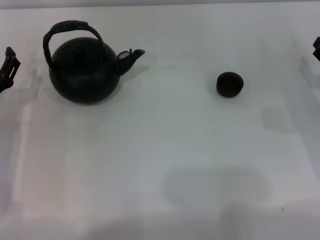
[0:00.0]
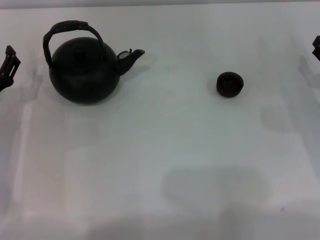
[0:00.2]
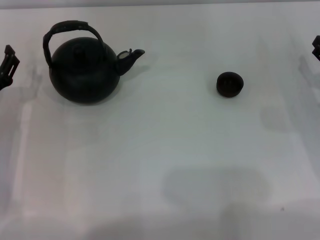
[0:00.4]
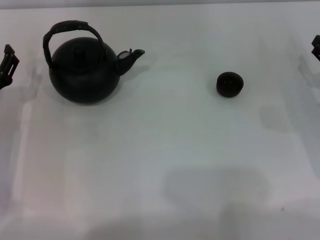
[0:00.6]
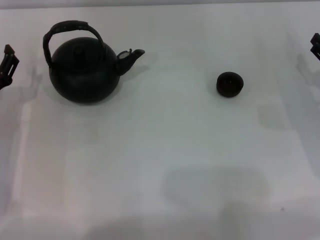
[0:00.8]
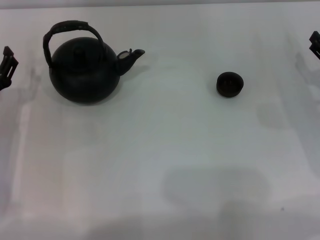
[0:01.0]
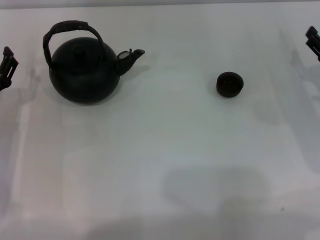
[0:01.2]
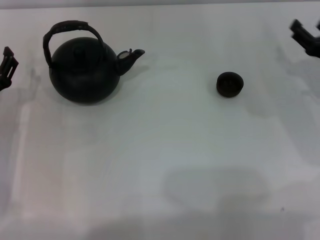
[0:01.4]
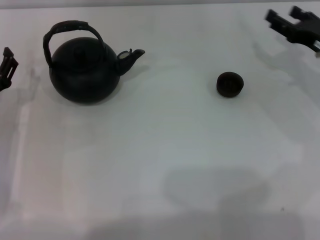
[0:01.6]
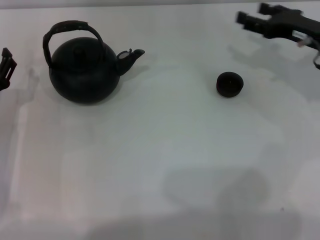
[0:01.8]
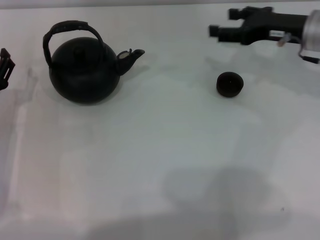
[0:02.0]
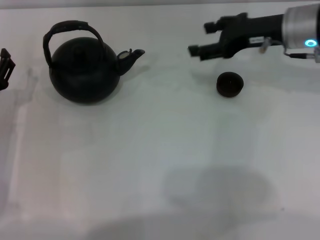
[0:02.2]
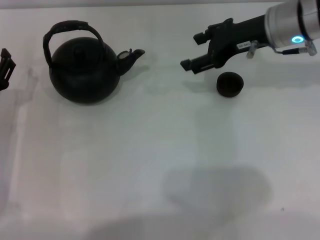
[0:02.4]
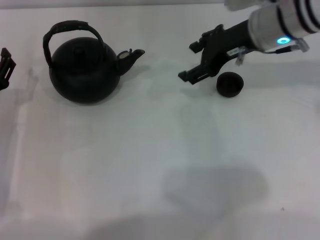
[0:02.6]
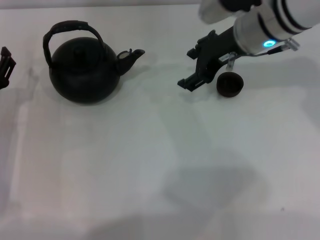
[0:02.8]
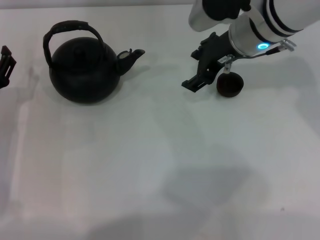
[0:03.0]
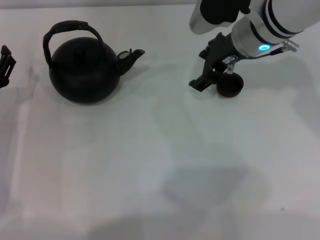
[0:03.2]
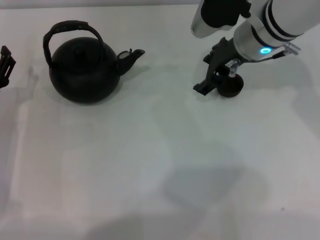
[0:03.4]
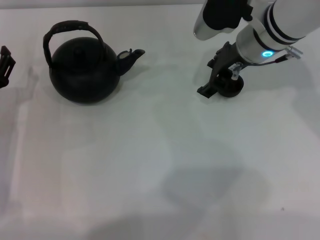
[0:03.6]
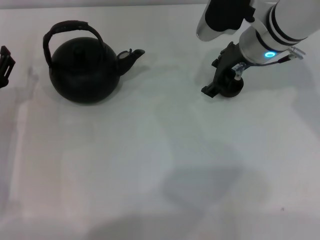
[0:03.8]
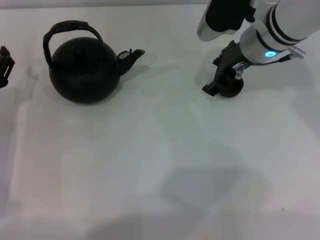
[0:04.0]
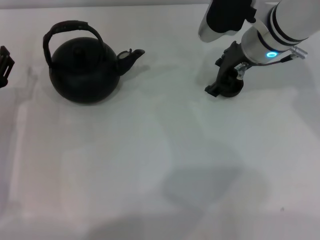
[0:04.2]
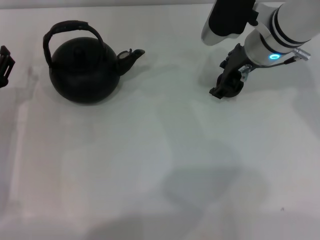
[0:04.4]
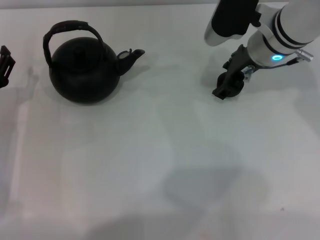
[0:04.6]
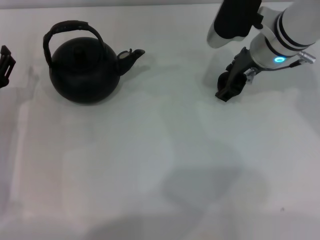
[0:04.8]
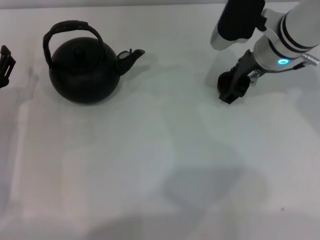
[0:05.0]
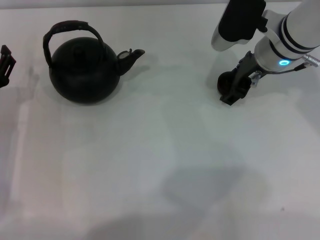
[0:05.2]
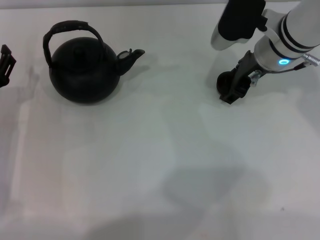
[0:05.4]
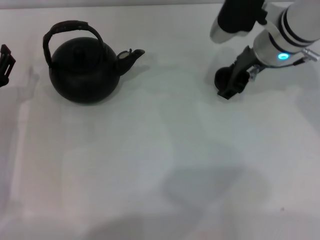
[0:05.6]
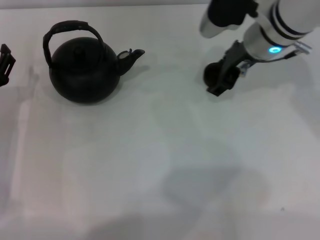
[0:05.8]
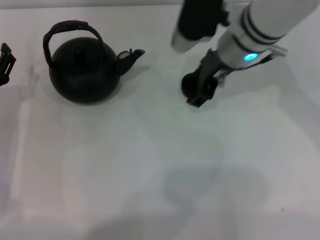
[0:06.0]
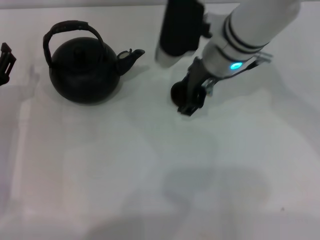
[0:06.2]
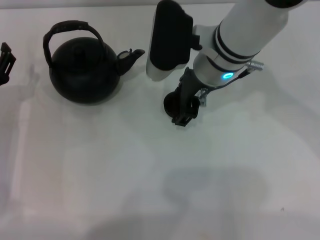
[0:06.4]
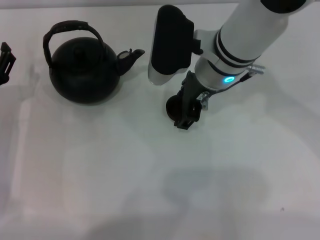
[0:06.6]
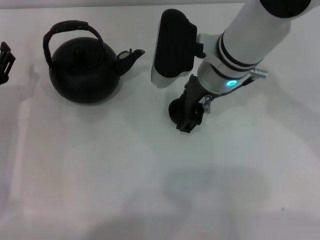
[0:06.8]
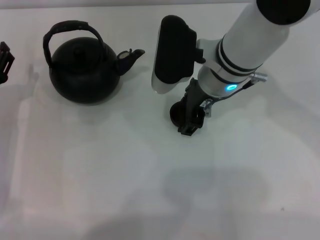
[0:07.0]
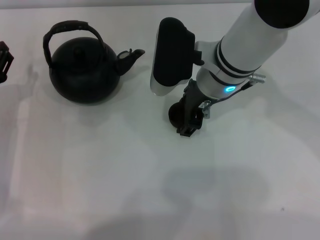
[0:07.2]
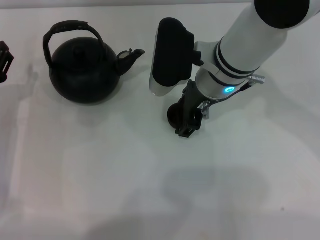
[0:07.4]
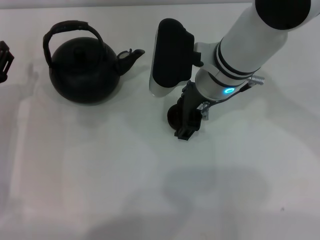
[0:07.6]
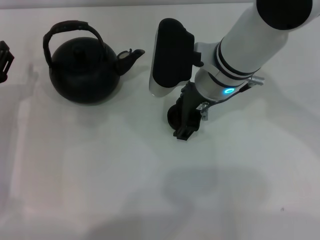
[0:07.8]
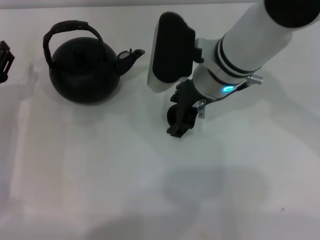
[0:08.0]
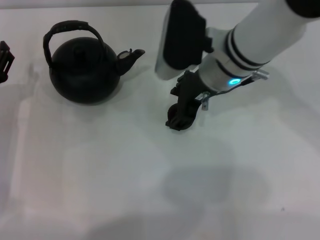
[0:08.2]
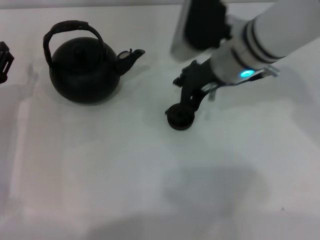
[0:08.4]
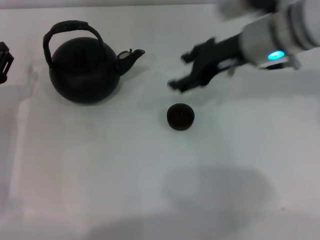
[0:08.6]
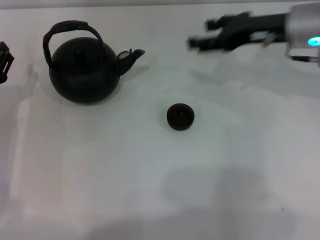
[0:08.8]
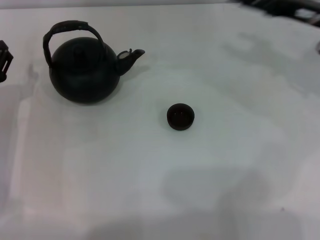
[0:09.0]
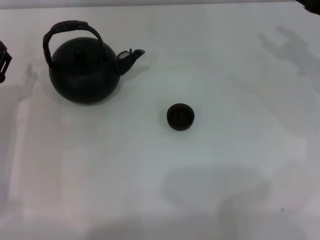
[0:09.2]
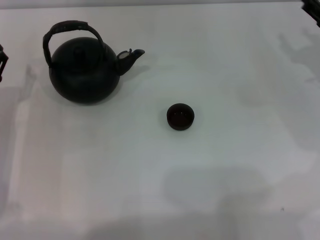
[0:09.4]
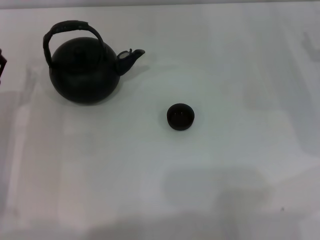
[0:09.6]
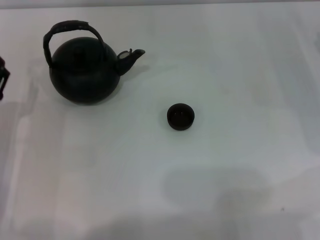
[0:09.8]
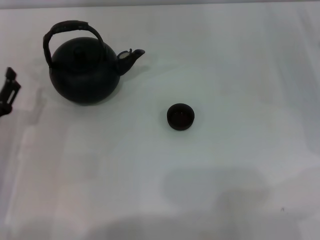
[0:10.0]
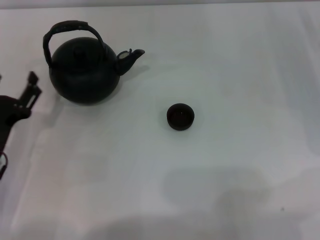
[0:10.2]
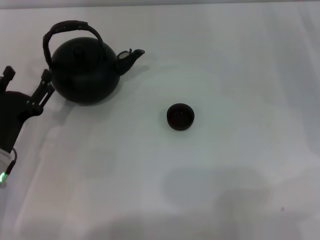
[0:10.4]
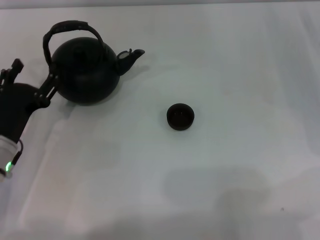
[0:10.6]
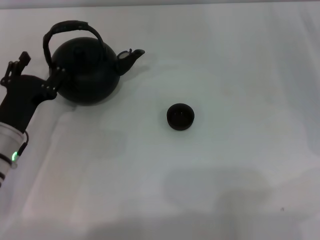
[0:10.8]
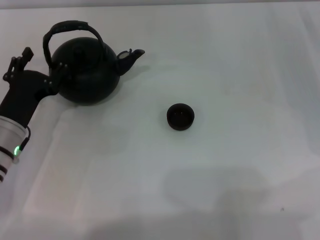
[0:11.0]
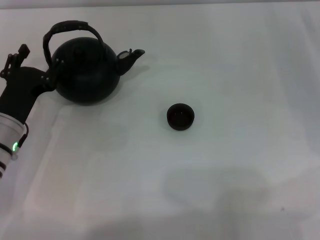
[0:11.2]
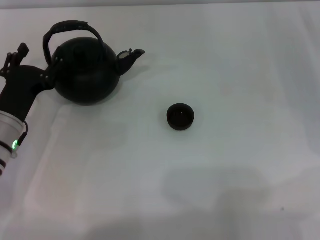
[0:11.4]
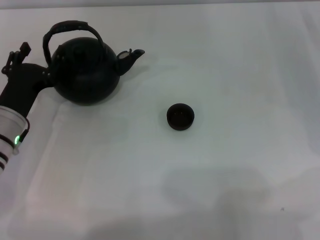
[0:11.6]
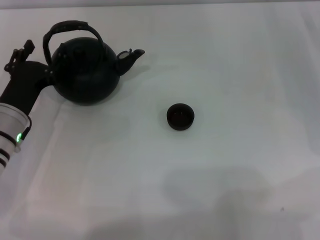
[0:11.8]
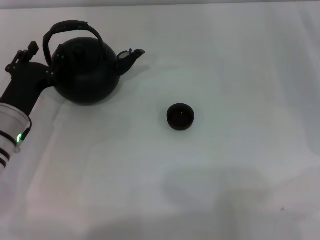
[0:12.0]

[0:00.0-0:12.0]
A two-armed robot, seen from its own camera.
Task of the whole recording: Grasp the handle of the teapot with one hand and pour tea into the teacup.
Step, 0:00.0 to 0:05.8: Pick up the teacup with the right gripper.
Step, 0:06.0 to 0:08.6: Place the teacup in the center of view with the right gripper.
0:00.0 to 0:01.6: The right gripper travels forward by approximately 5 cm.
0:01.6 to 0:03.0: The right gripper moves to the left and upward, some 20 cm.
0:03.0 to 0:04.4: There are only small adjustments of the grippers.
0:04.4 to 0:06.0: The right gripper ends up roughly 5 cm from where it was.
0:06.0 to 0:07.6: The grippers make only small movements.
0:07.6 to 0:09.0: The right gripper shifts roughly 20 cm to the right.
0:09.0 to 0:10.4: The left gripper shifts about 5 cm backward. Meanwhile the right gripper moves downward and to the right, about 10 cm.
0:10.4 to 0:12.0: The left gripper is displaced forward by roughly 5 cm.

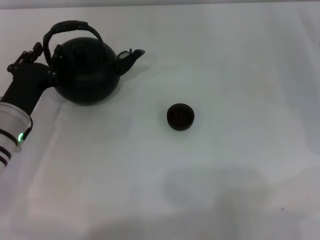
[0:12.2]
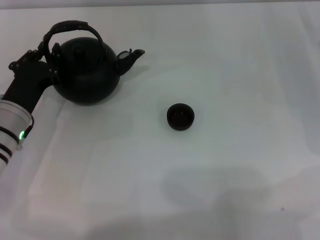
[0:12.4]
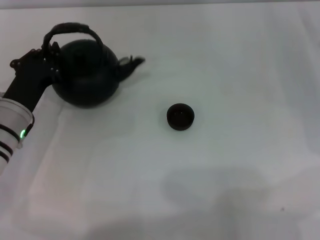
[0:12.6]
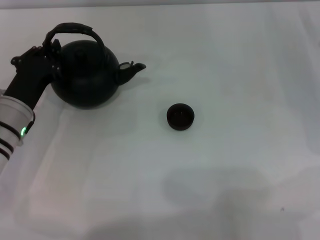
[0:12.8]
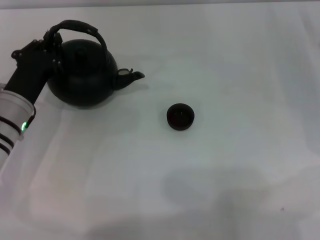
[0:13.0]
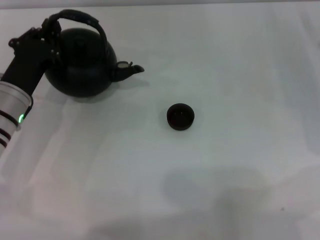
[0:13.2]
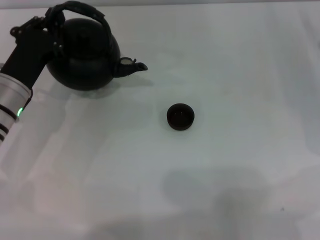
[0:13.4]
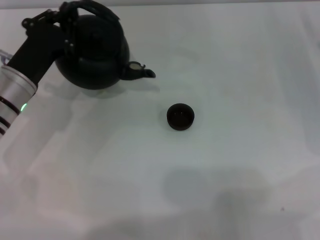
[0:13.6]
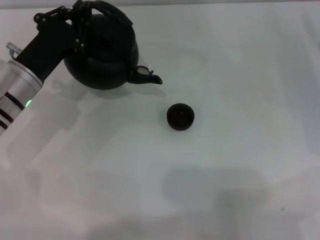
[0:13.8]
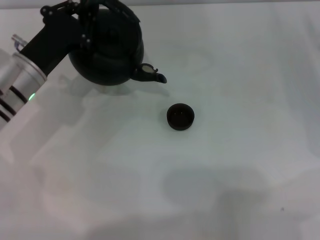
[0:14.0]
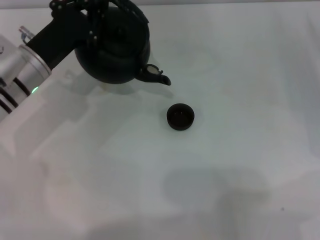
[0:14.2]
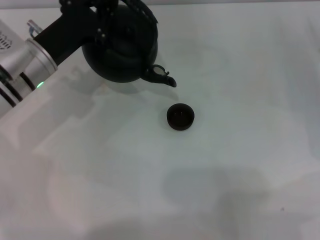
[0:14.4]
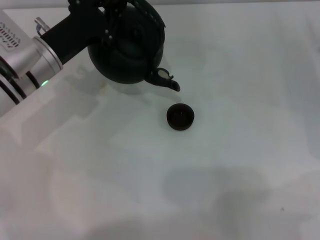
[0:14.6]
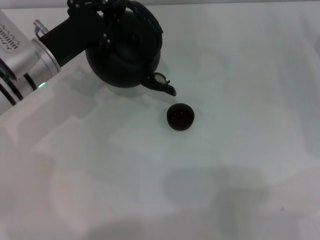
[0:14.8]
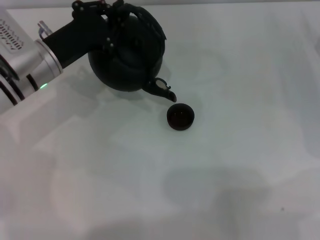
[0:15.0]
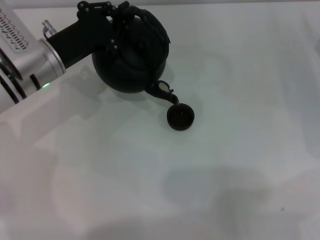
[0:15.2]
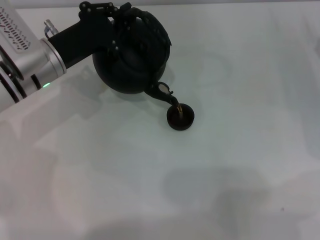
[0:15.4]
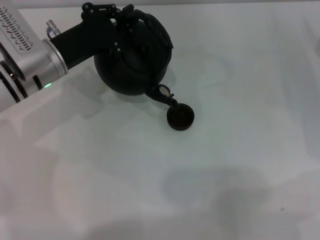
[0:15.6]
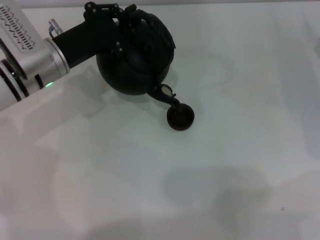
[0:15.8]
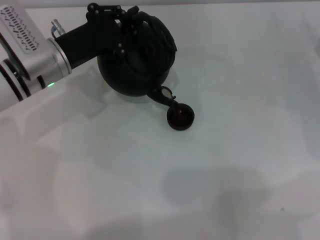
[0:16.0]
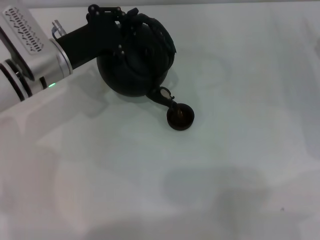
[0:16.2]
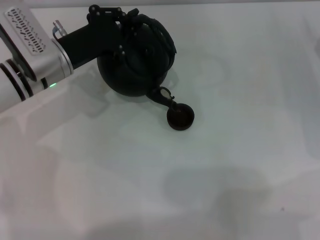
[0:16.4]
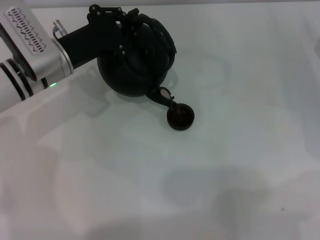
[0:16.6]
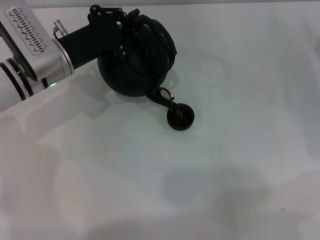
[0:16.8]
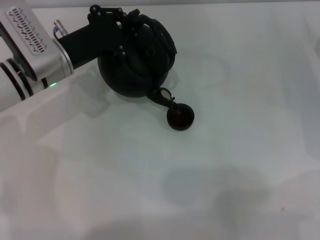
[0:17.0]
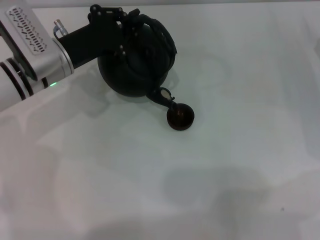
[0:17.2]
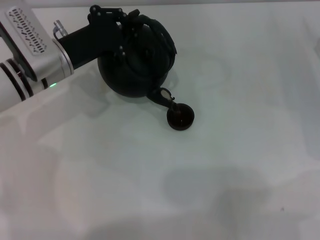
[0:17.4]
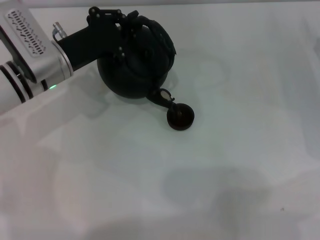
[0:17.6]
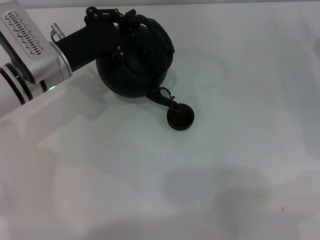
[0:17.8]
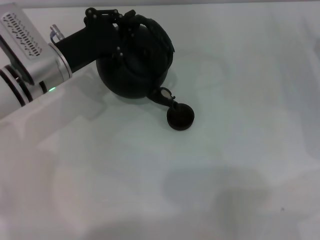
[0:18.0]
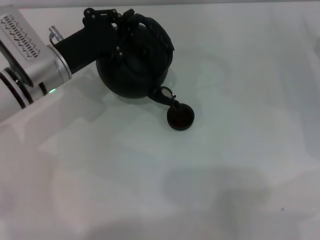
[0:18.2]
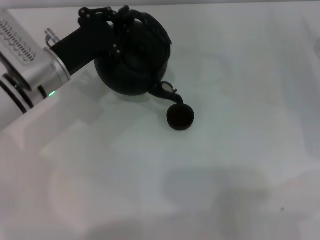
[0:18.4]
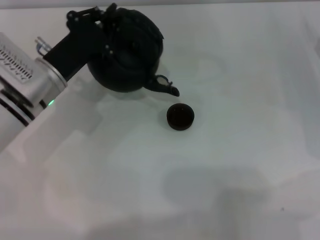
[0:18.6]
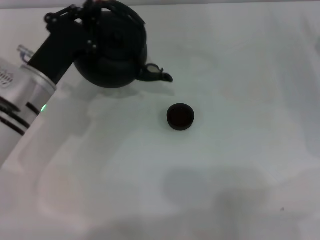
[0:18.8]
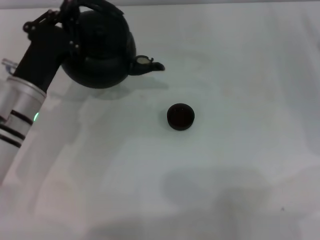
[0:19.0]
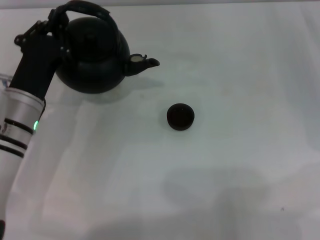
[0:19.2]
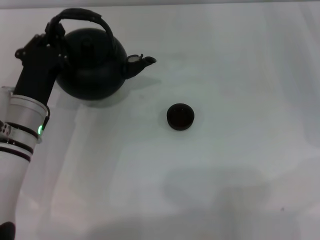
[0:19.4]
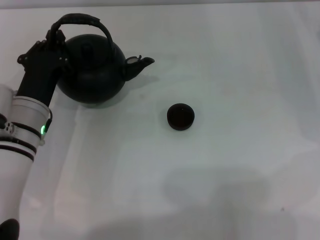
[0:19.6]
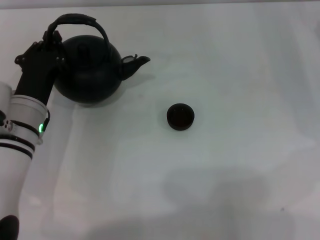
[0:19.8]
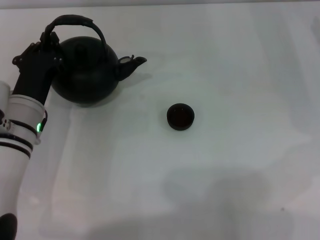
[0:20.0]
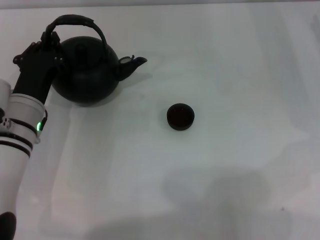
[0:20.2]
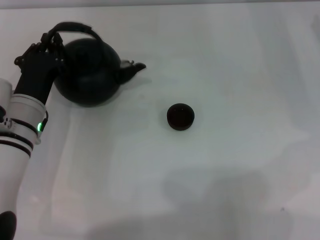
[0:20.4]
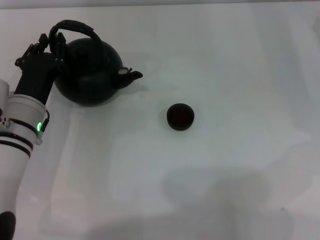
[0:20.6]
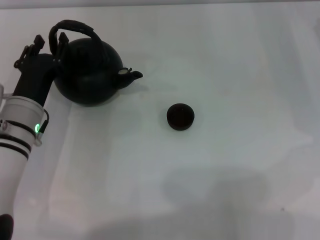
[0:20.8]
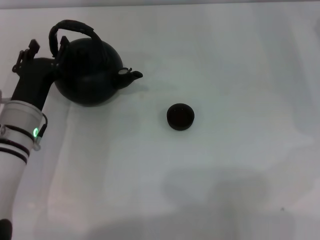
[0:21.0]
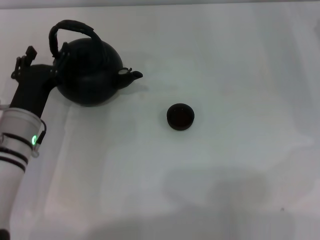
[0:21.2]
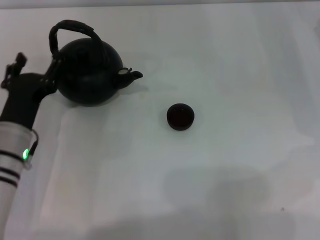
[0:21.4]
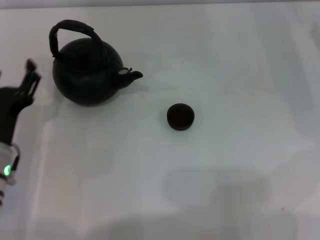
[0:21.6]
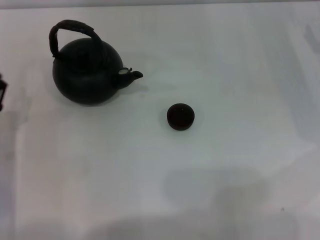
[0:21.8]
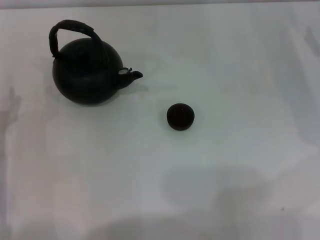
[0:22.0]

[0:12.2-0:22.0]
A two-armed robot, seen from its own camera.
Task of the whole recording: Grasp the handle of the teapot with one hand and pour tea into the teacup.
Step, 0:14.0 to 0:18.2: Pour tea into the teacup with the left gripper.
Step, 0:18.6 to 0:21.0: Put down the teapot with the left gripper.
0:12.2 to 0:13.6: The left gripper changes place by some 5 cm, and closes.
0:13.6 to 0:15.0: The left gripper shifts by roughly 5 cm.
0:15.0 to 0:16.4: The grippers stay close to where they were, moving slightly.
0:16.4 to 0:17.8: Both grippers stay about where they are.
0:17.8 to 0:19.2: The left gripper travels backward by approximately 10 cm.
0:19.2 to 0:20.6: The grippers make only small movements.
0:20.6 to 0:22.0: The left gripper goes some 10 cm to the left and backward, and opens its fingers.
